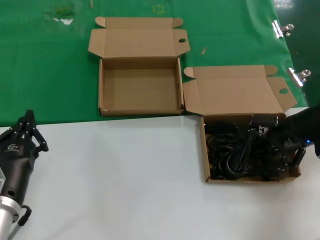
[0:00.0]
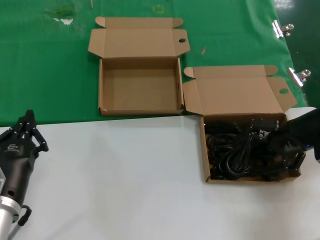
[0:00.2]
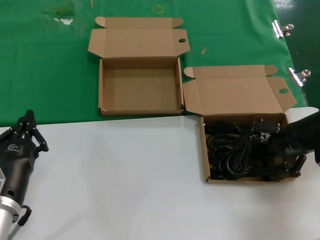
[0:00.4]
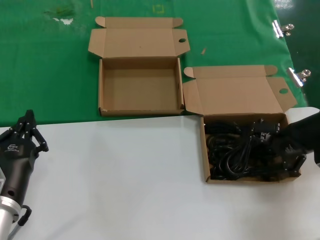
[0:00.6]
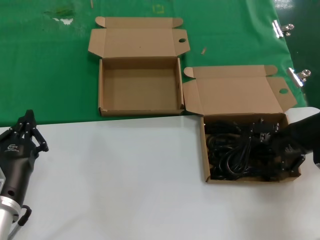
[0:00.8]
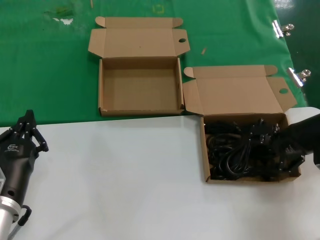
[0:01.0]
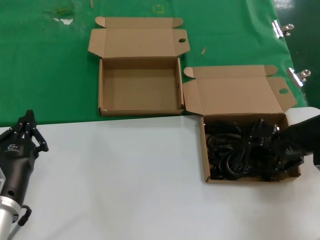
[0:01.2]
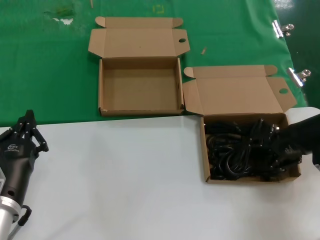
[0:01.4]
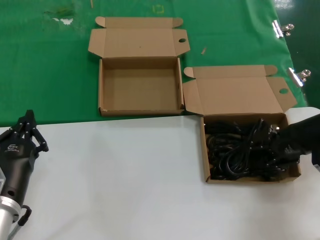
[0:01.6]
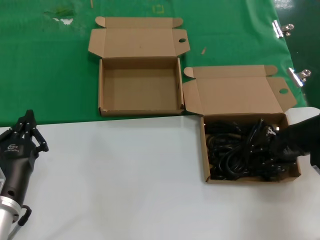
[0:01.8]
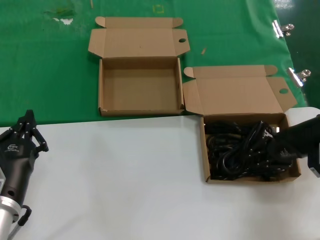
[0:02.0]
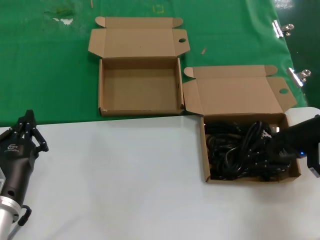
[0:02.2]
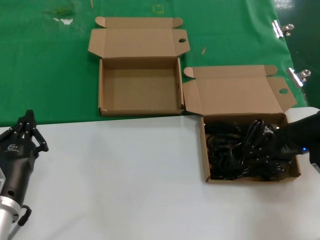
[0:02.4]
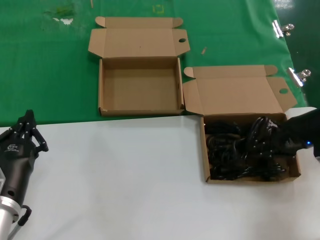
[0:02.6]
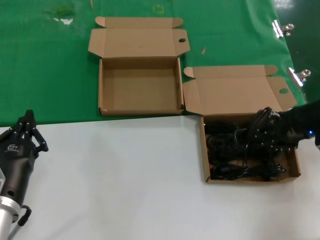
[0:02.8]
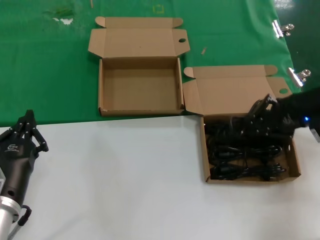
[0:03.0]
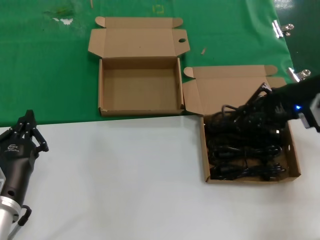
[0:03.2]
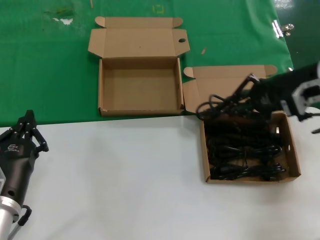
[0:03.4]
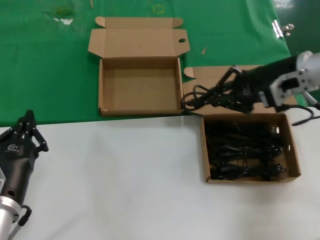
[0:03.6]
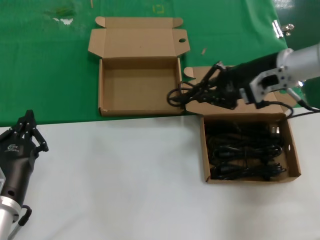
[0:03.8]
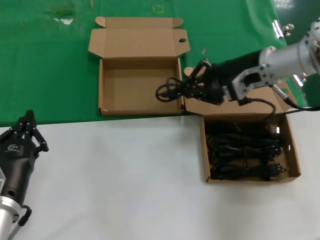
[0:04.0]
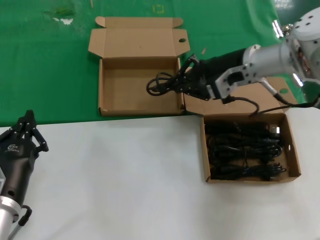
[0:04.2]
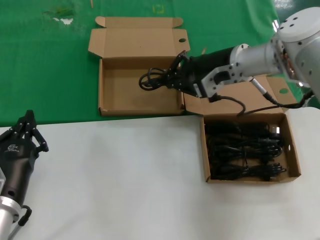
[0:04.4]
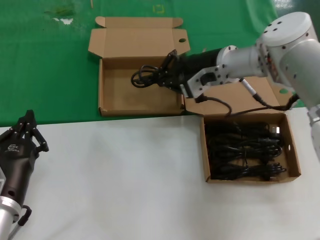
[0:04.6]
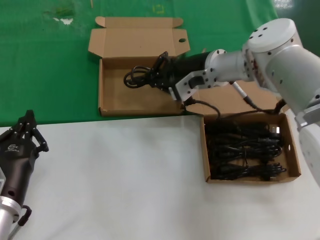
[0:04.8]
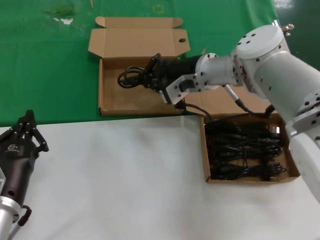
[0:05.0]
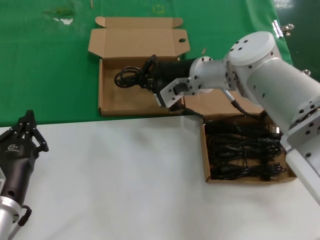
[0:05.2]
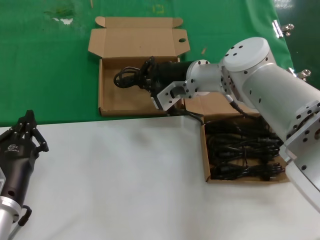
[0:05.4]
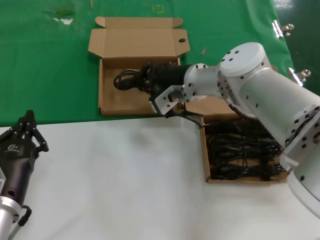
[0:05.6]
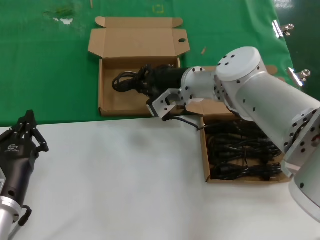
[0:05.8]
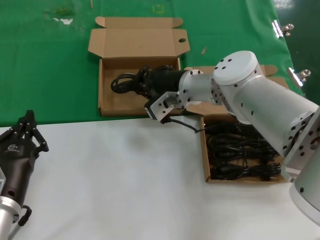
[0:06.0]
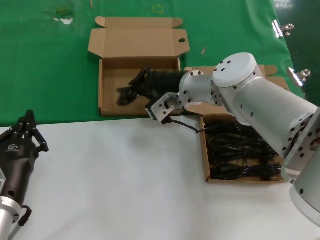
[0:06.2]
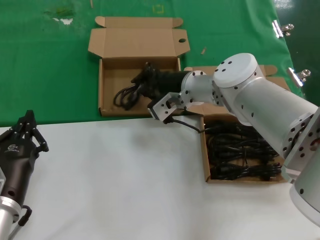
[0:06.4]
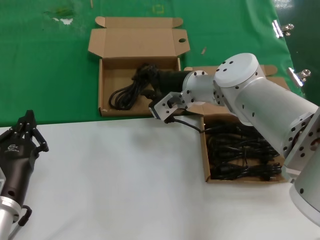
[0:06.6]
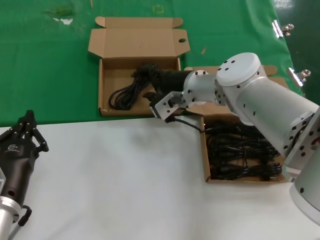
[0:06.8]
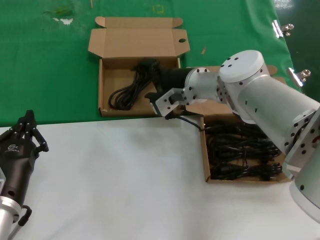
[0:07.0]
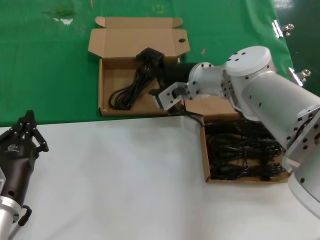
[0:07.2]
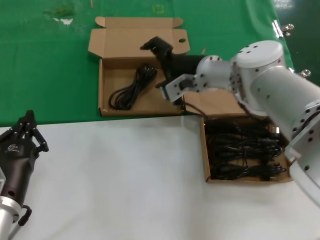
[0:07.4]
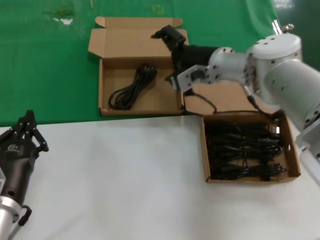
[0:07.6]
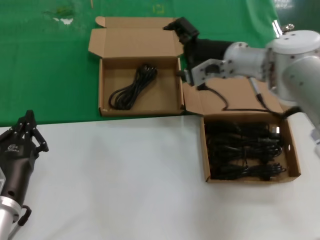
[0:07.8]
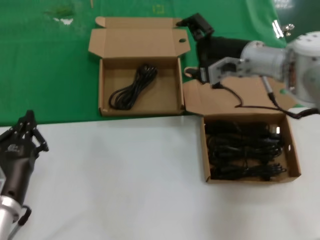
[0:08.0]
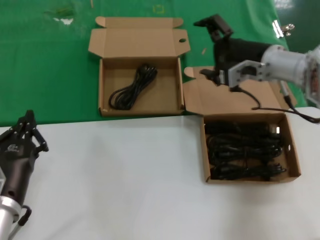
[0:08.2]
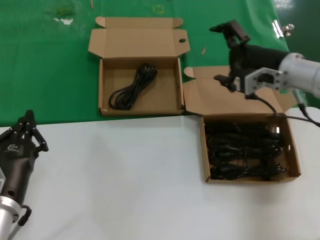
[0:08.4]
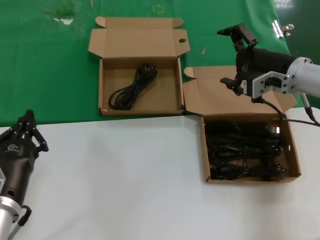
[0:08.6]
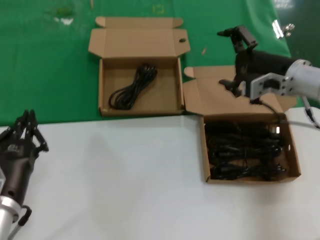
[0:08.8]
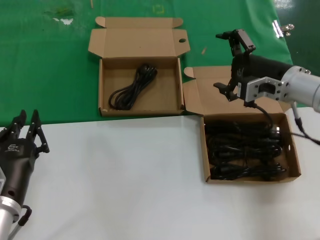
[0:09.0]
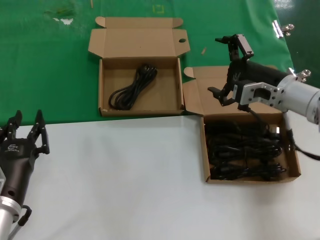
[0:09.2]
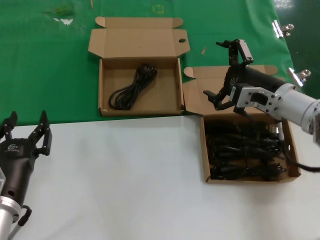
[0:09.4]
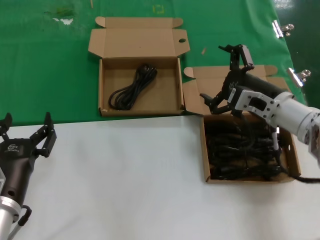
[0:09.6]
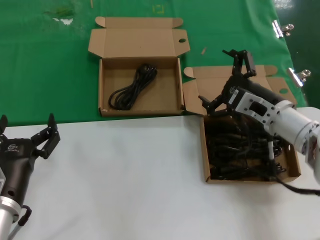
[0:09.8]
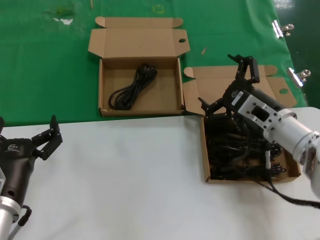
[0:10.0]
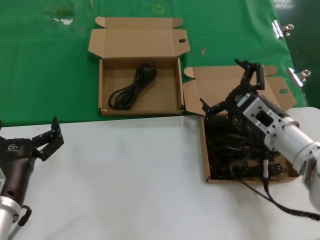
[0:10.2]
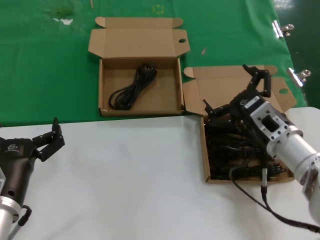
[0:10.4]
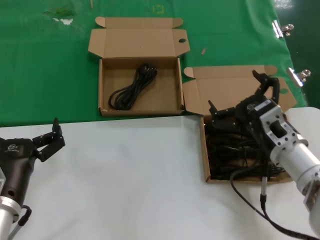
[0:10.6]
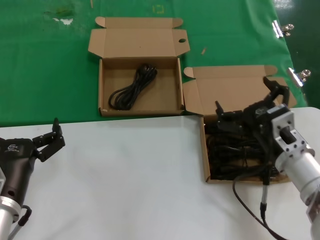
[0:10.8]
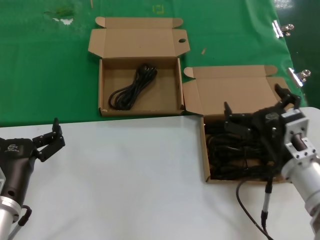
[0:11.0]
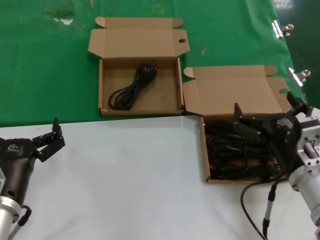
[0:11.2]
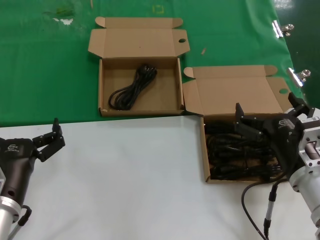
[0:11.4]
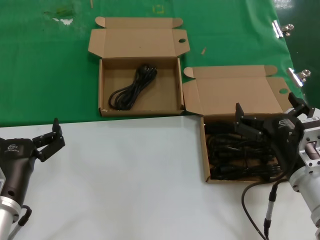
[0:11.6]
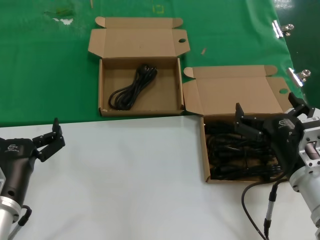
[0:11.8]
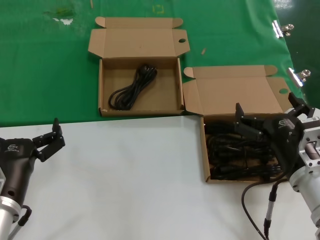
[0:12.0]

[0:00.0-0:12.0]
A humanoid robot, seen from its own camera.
Task of the whole recording: take the parts from the box containing them and put them into an empty box.
Step, 0:02.2 to 0:06.4: Place the data cable in the another box.
0:00.0 to 0:01.6: The hands make only small movements.
0:01.6 to 0:03.0: The right hand goes some 5 cm upward.
0:03.0 to 0:04.4: The right hand goes roughly 20 cm to the left and forward.
0:04.4 to 0:06.0: The right hand goes approximately 10 cm to the left and downward.
0:06.0 to 0:07.6: The right hand heads to the right, covering some 5 cm.
0:07.6 to 0:09.0: The right hand is displaced to the right and backward by about 15 cm.
0:09.0 to 0:10.4: The right hand travels backward, downward and to the left by approximately 15 cm.
0:10.4 to 0:12.0: The right hand shifts approximately 10 cm backward.

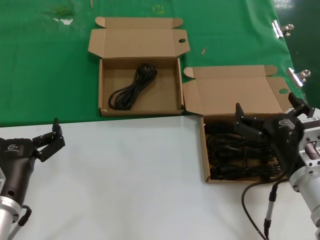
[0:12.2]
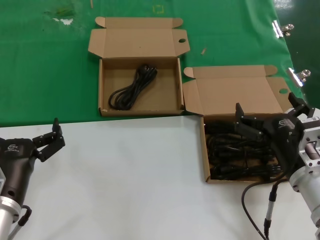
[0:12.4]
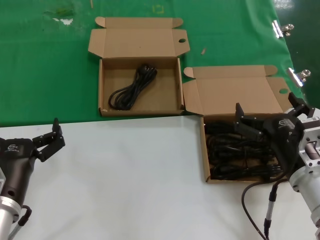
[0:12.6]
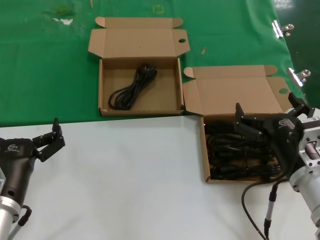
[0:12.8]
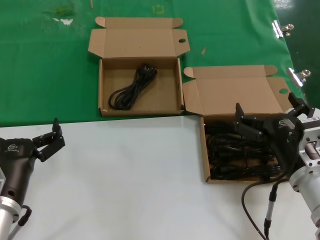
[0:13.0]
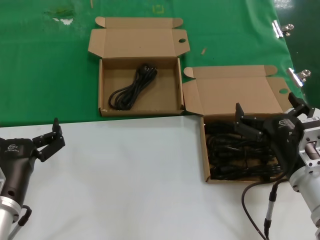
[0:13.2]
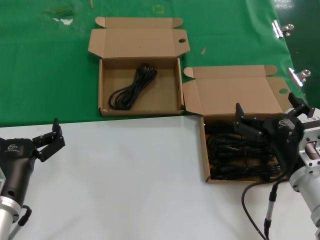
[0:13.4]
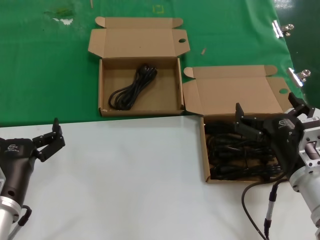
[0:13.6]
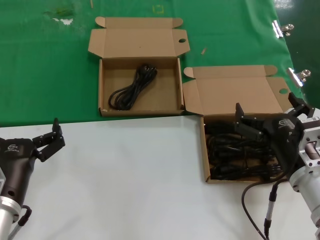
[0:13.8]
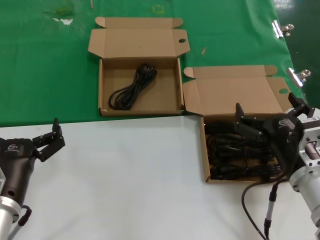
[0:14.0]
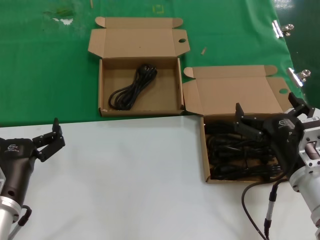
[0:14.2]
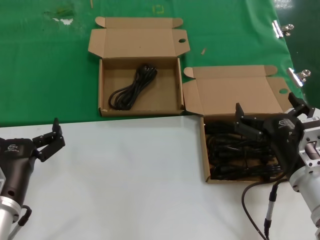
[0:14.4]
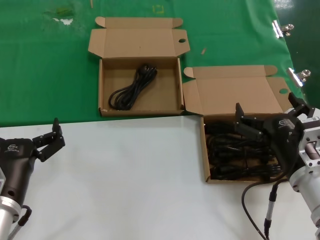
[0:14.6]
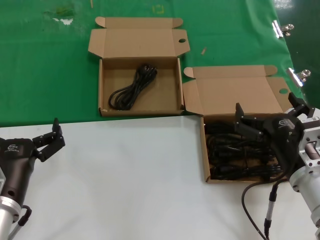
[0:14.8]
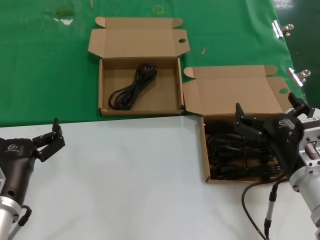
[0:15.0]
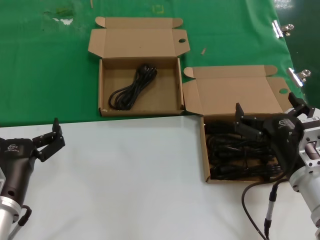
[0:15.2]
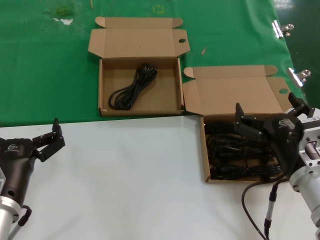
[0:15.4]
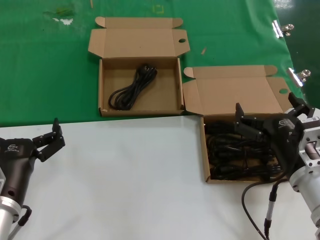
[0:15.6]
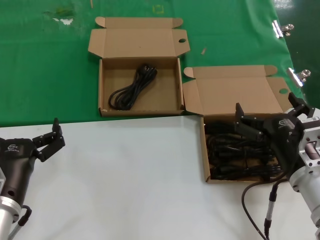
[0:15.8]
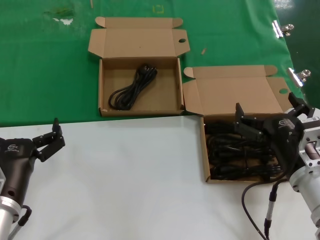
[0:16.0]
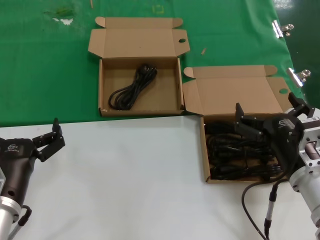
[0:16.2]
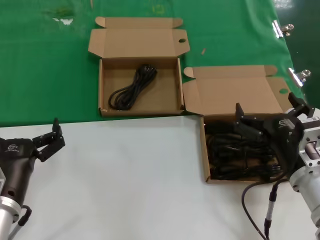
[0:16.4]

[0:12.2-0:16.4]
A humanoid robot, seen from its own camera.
Task of the whole recording: take the parts from the box containing them and put them into an empty box.
0:12.2 to 0:16.4: Both hands stay about where they are.
